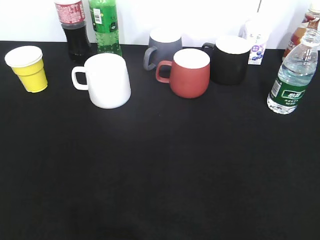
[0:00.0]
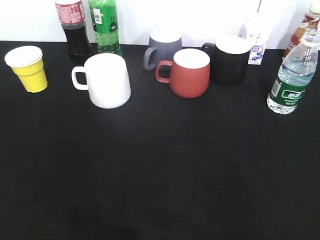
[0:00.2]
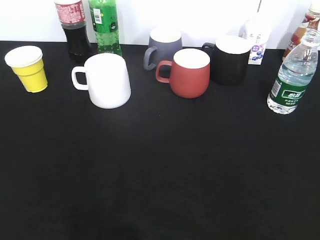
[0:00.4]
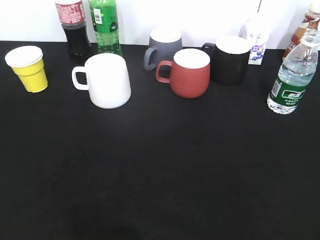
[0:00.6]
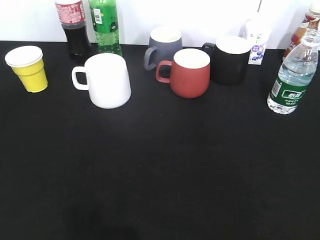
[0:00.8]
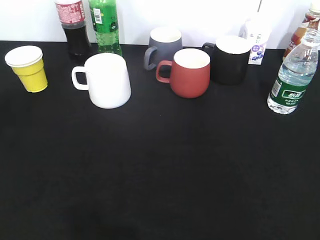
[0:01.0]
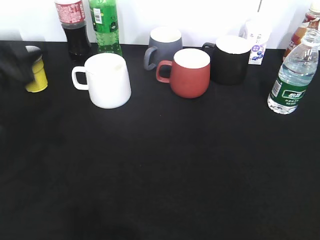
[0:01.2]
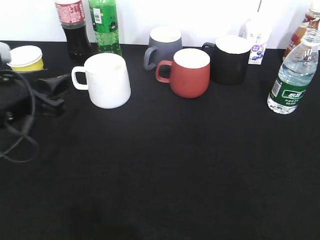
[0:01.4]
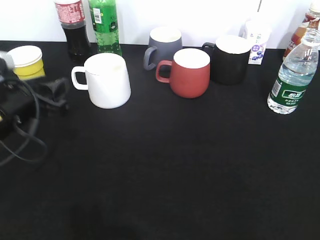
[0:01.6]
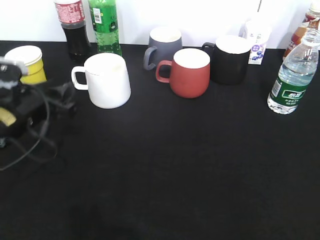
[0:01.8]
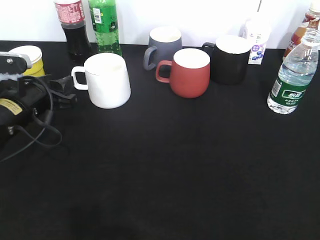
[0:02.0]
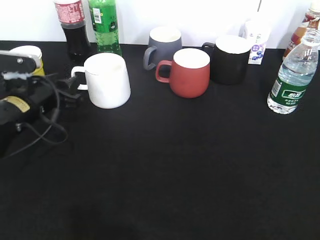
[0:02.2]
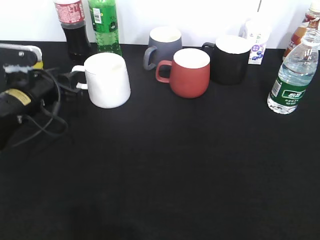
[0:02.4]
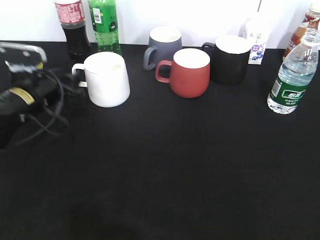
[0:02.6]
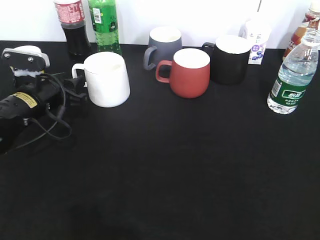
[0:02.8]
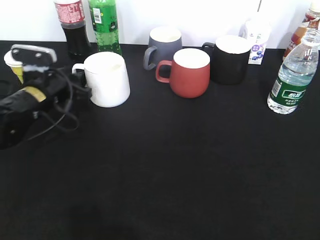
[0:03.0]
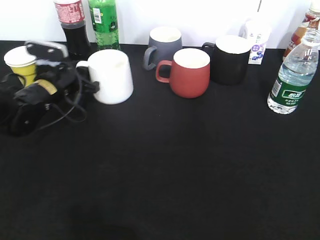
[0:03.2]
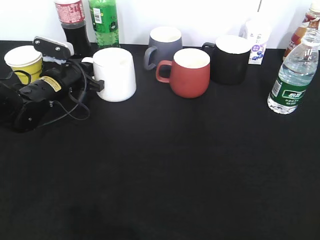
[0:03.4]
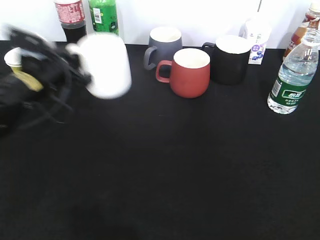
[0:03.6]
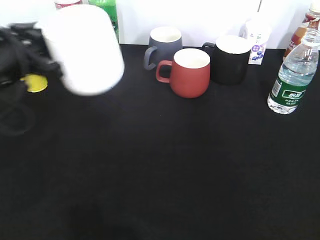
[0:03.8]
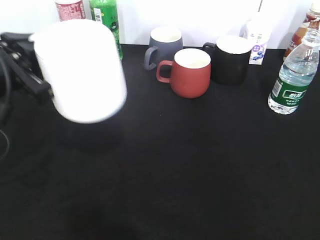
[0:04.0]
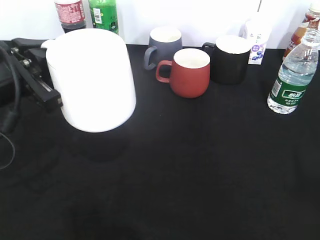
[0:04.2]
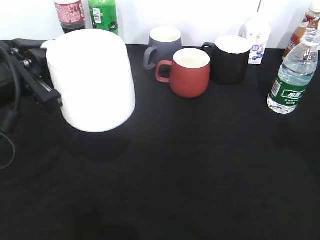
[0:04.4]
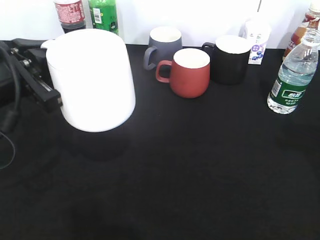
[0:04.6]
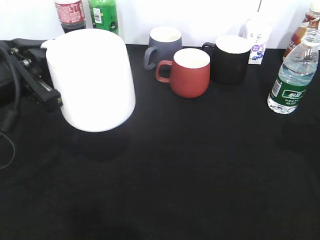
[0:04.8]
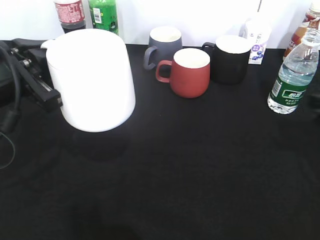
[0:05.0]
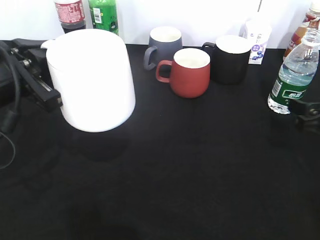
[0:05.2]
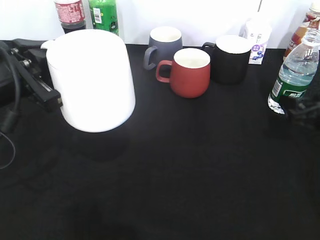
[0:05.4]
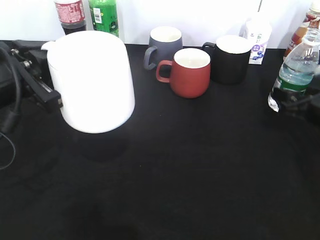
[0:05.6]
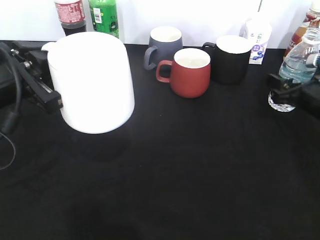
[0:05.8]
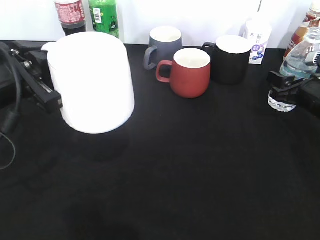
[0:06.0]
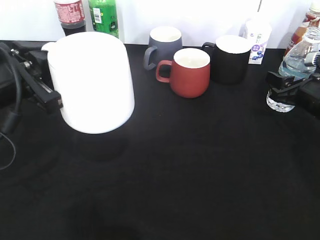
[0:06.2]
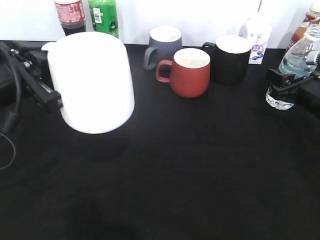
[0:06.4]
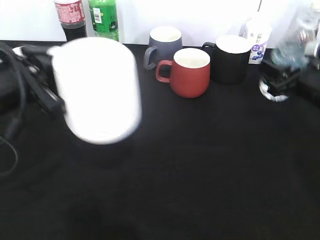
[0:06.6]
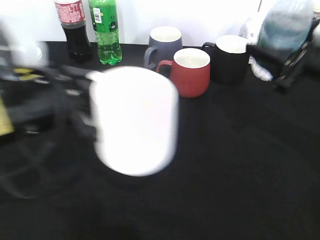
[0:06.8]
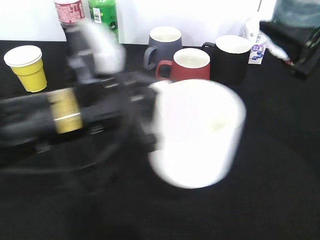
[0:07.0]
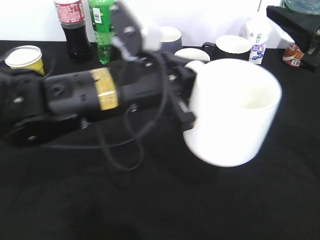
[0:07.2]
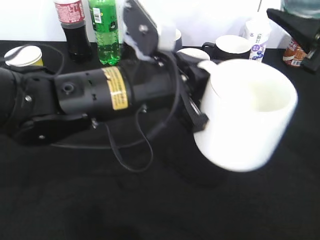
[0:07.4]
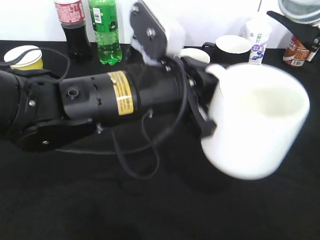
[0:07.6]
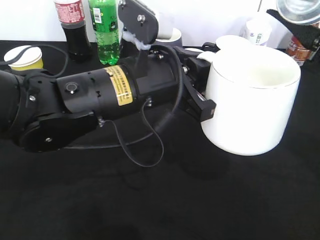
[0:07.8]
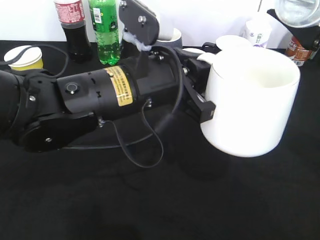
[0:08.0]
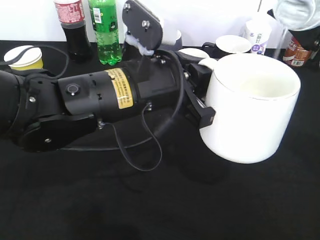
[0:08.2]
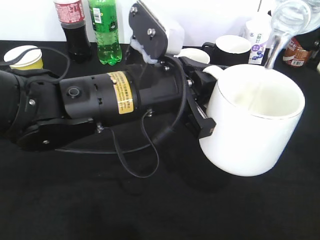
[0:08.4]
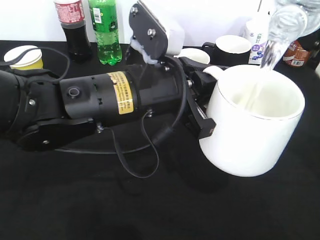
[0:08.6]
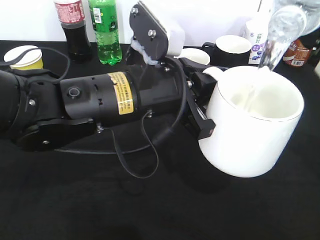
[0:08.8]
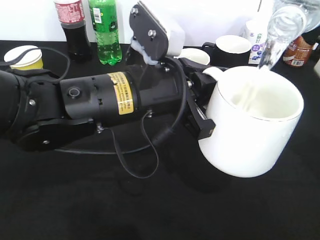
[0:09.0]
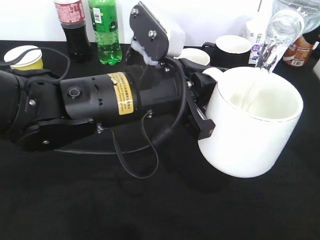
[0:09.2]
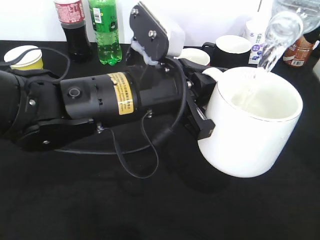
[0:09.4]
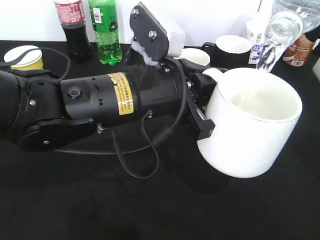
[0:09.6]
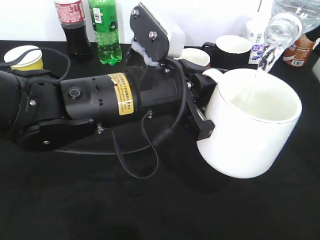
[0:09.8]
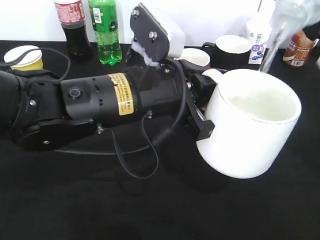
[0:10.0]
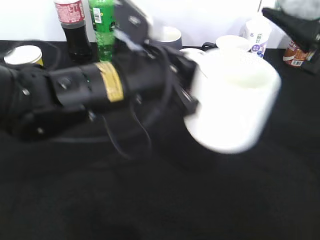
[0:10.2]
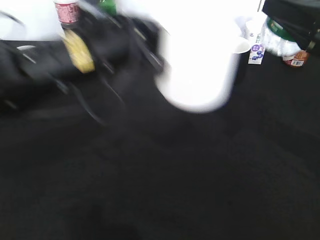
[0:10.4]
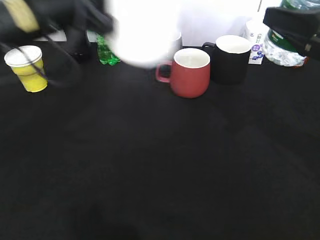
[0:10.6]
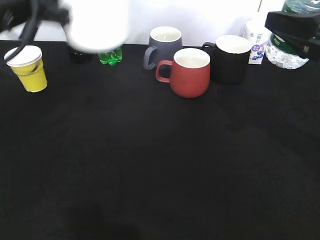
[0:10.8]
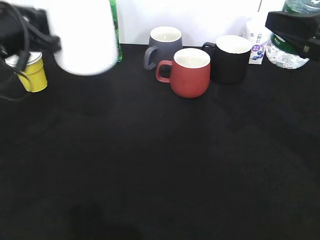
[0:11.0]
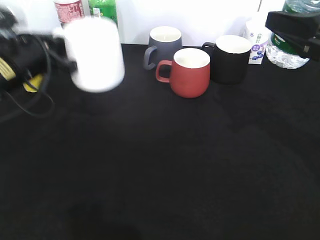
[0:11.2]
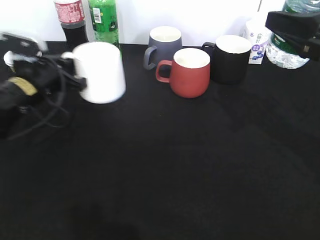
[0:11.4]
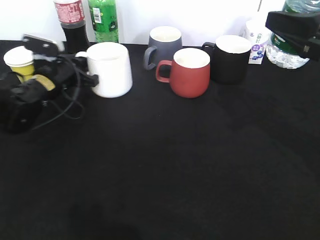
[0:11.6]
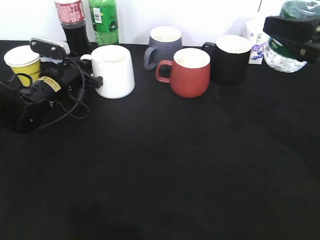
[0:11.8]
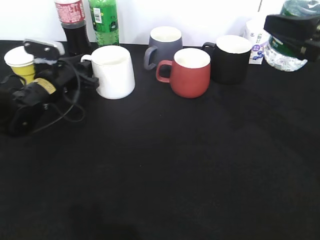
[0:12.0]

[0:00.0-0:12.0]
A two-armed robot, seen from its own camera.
Step, 0:00.6 to 0:03.2: Grasp the white cup with left gripper.
Step, 0:03.4 to 0:04.0: Lift the white cup with left gripper.
Step, 0:04.2 to 0:06.0: Grasp the bottle with water with right gripper.
Step, 0:06.2 to 0:10.2: Pour the water from bottle to cup with right gripper.
0:00.0 to 0:01.6: The left gripper shifts approximately 30 cm forward and downward.
0:01.6 to 0:03.0: The left gripper heads forward, covering some 10 cm.
0:03.0 to 0:04.4: The left gripper moves backward and upward, about 20 cm, and closes up. Meanwhile the right gripper heads forward and upward, covering about 15 cm.
0:04.4 to 0:06.0: The right gripper goes some 30 cm downward and forward, and closes its fingers.
0:06.0 to 0:07.6: The right gripper goes some 20 cm upward and backward, while the left gripper is displaced to the right by roughly 15 cm.
0:09.0 to 0:10.4: The left gripper travels to the left by about 5 cm.
0:10.4 to 0:12.0: The left gripper travels downward, forward and to the left by some 25 cm, and opens its fingers.

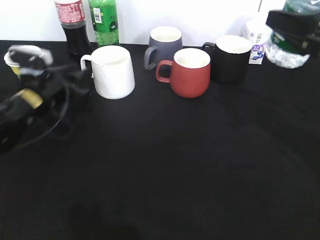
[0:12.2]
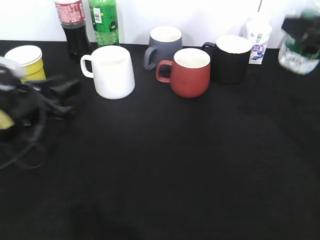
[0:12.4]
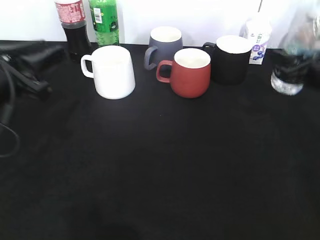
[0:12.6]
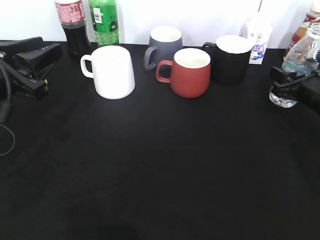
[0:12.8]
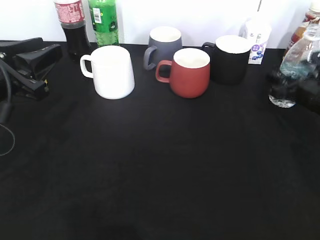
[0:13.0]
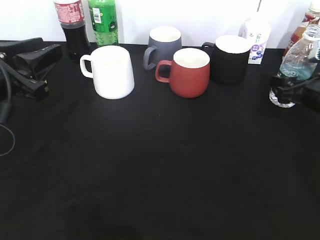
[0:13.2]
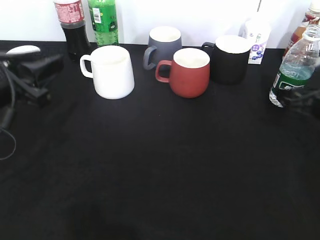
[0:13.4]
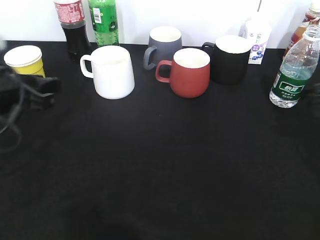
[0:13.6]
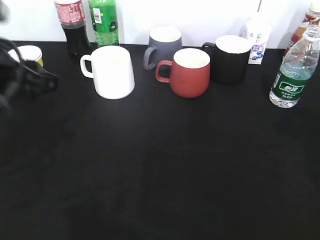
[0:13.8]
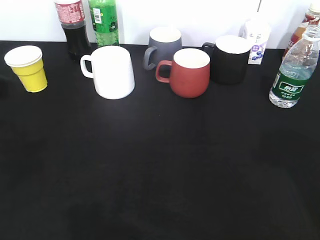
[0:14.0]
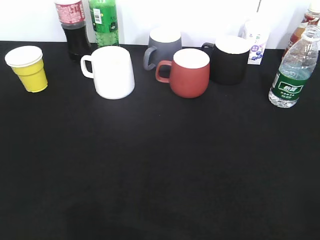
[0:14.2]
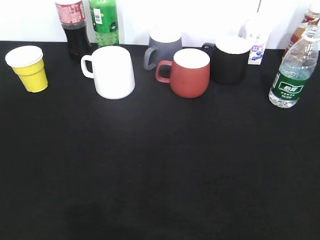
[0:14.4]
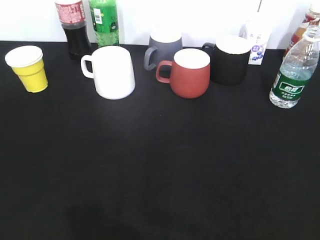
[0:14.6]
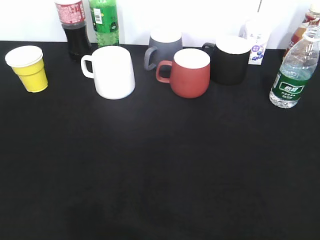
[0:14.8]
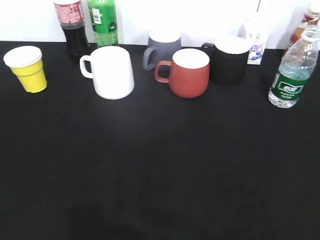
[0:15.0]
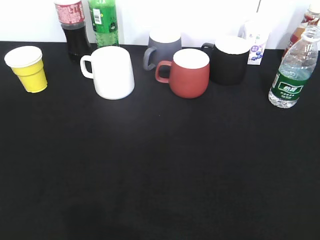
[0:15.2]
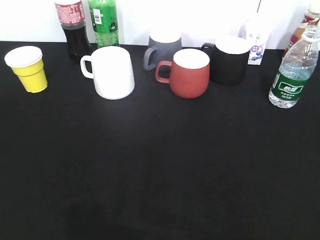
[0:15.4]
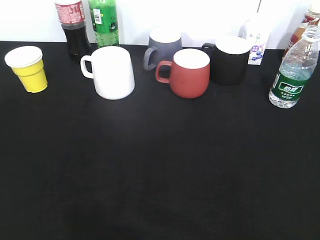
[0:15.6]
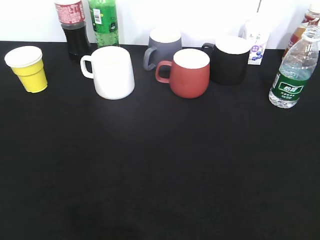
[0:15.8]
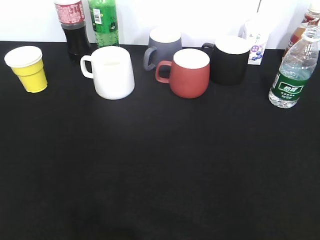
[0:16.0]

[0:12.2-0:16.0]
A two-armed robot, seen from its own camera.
Step, 0:12.4 to 0:13.4: Place the water bottle on the table with right gripper.
0:12.2 to 0:13.4: The left gripper shifts approximately 15 cm backward and upward; the right gripper moves downward, about 15 cm, and opens its fingers.
0:13.4 to 0:14.8: The right gripper shifts some 35 cm backward and upward; the left gripper is displaced backward by approximately 25 cm.

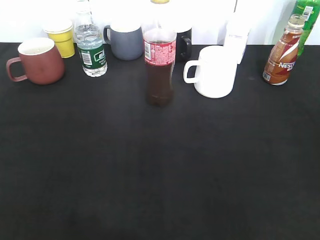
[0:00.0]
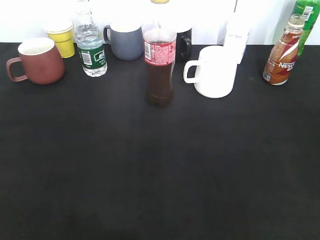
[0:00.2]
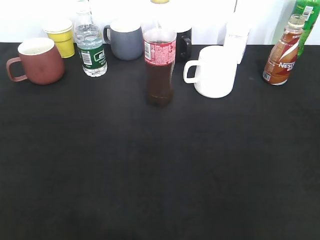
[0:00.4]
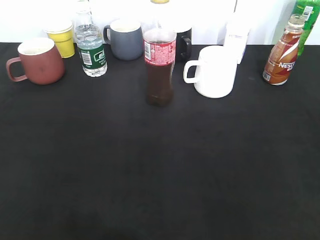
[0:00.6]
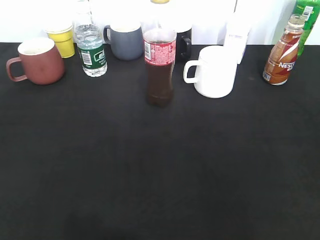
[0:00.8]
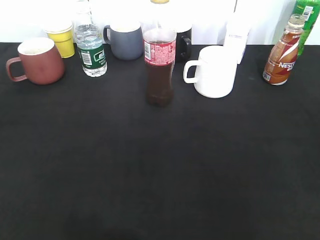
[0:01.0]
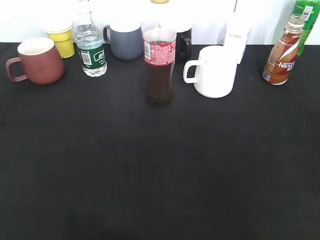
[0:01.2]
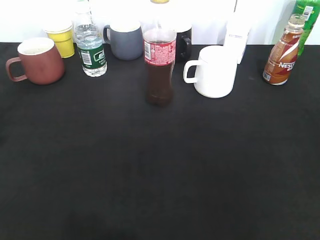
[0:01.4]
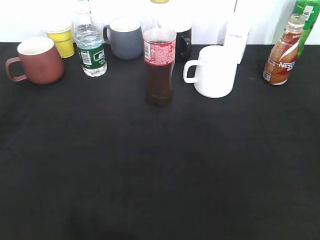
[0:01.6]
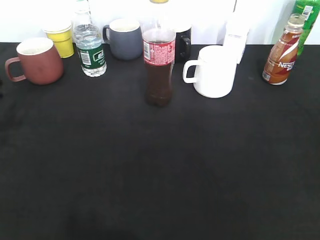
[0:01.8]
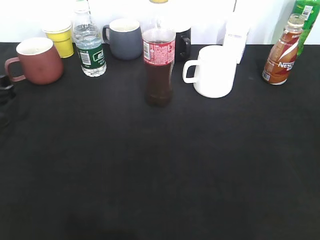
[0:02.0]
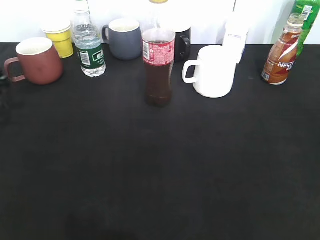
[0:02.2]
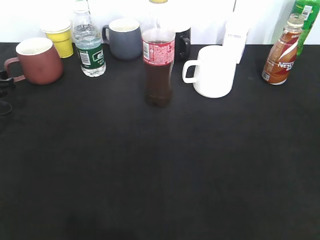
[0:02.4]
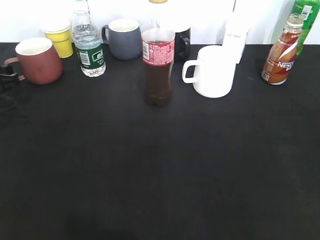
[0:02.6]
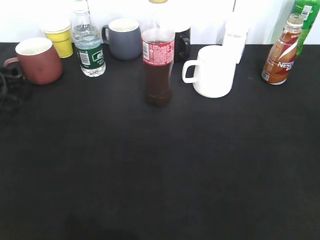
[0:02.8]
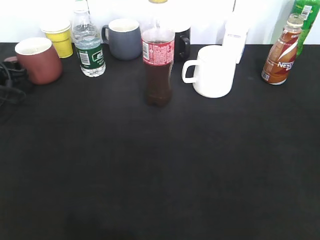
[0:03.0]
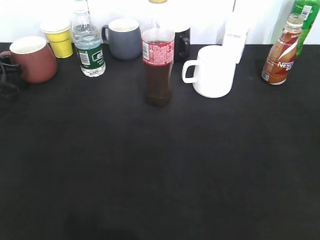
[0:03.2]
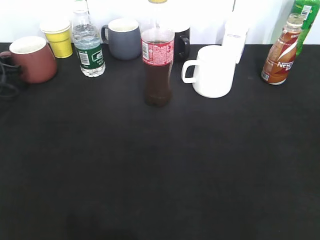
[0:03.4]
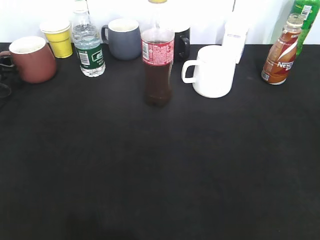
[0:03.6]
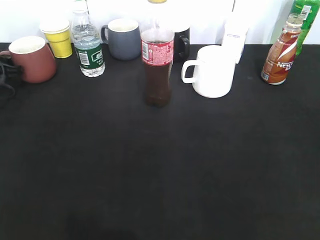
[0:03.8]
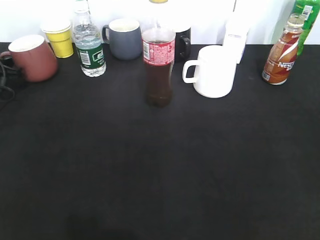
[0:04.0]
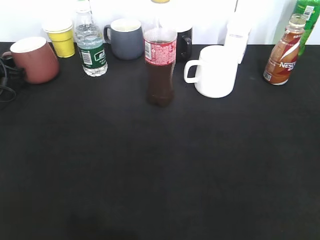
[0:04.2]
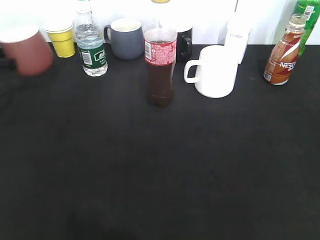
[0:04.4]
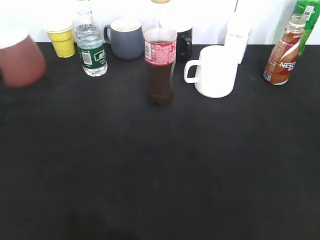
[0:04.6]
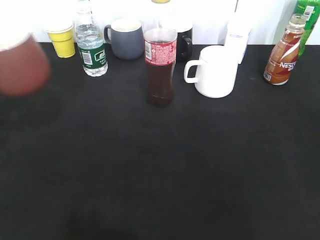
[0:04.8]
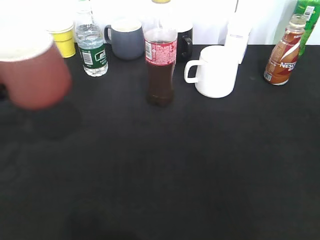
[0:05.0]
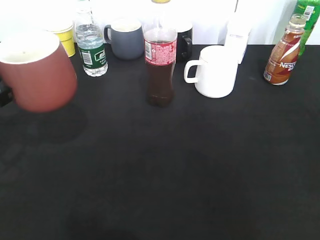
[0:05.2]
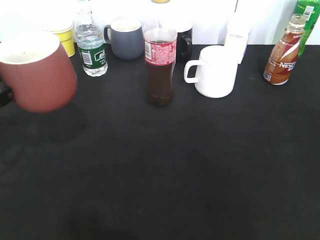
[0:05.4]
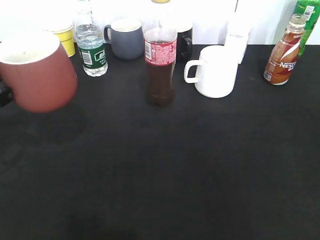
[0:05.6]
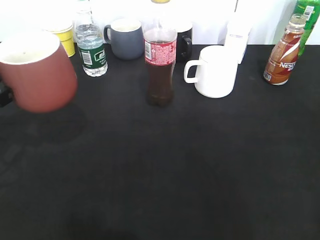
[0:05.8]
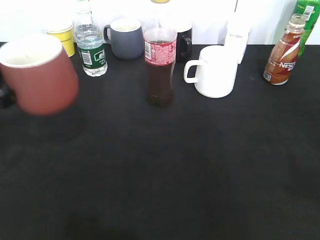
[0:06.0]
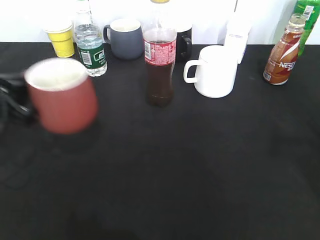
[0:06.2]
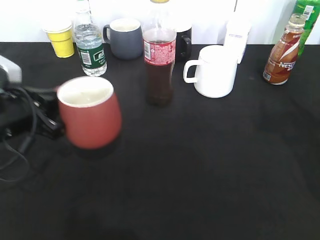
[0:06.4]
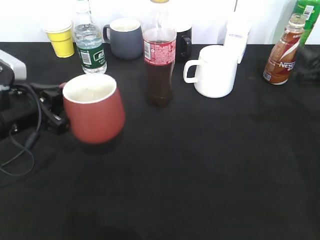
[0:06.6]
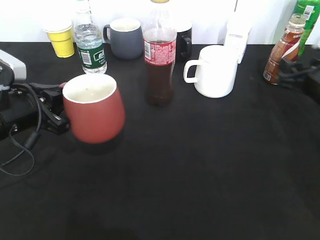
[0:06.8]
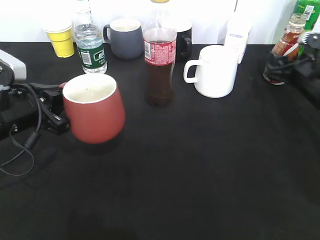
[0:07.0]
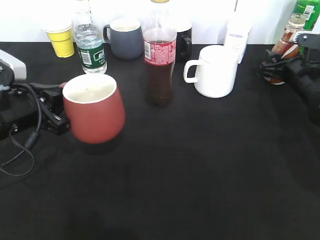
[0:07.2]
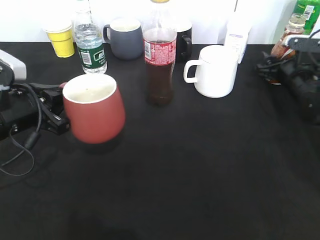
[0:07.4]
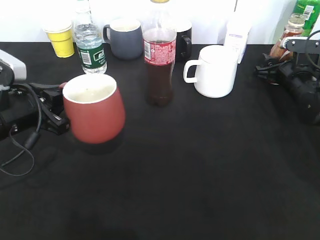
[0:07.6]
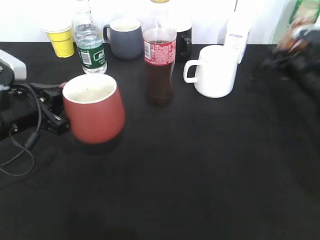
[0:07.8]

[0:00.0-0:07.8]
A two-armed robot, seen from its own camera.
Step, 0:01.8 to 0:04.0: Grasp the red cup with left gripper.
Step, 0:04.4 to 0:06.2: Lift the red cup with left gripper.
Step, 0:06.4 to 0:07.4: Grasp the bottle with coffee with right gripper.
0:01.6 to 0:03.2: The left gripper goes approximately 20 cm forward and downward, and closes up.
0:03.2 to 0:04.6: The left gripper goes about 10 cm backward and upward.
0:04.6 to 0:06.2: The left gripper moves to the right and backward, some 10 cm.
0:06.2 to 0:07.8: The right gripper travels forward and downward by some 25 cm.
